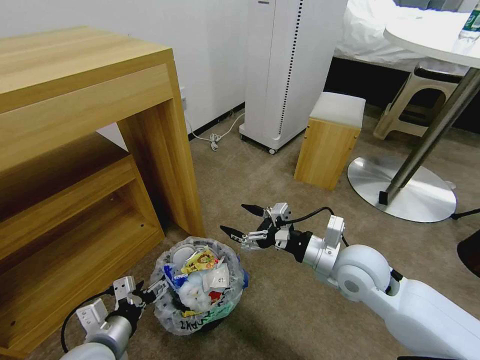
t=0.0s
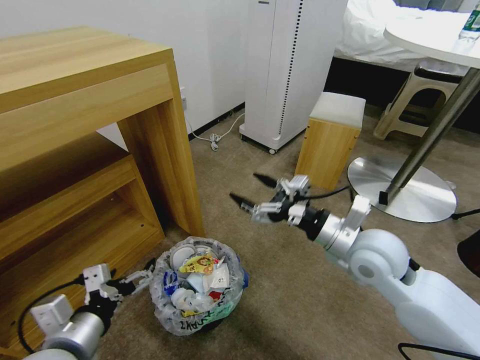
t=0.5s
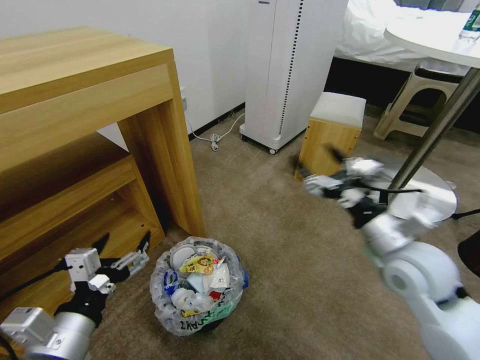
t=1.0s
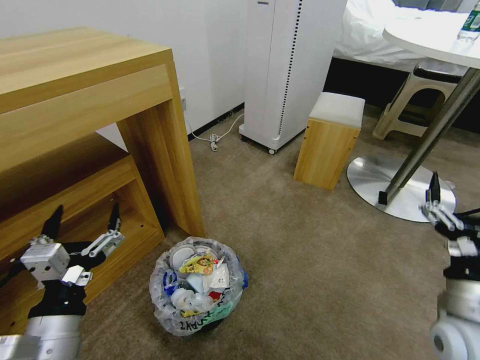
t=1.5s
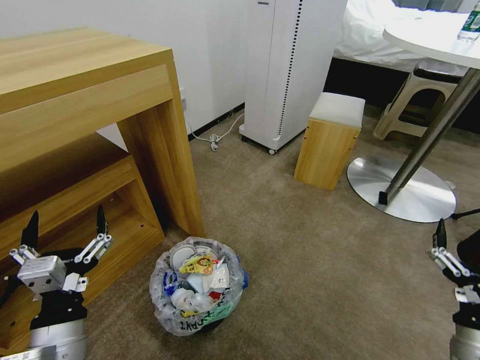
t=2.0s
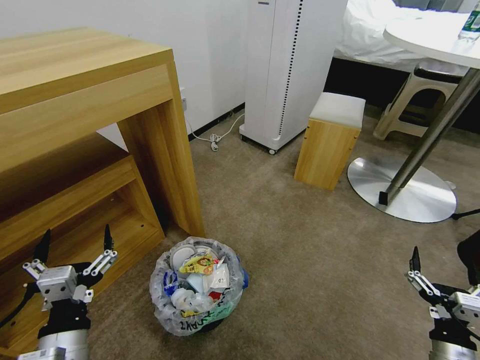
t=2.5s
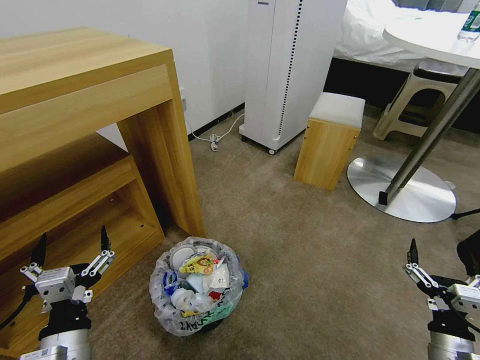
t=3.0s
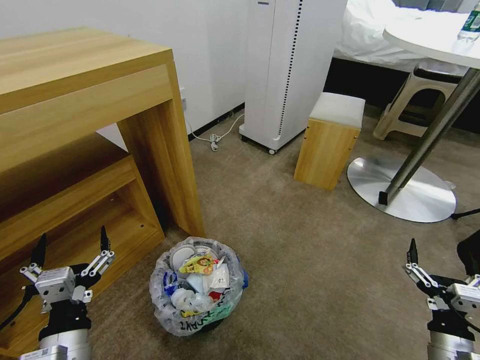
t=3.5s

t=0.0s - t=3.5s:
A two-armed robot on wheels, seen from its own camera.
Task of the whole recording: Pick up the trash bin and place the garbage on the floor into it.
t=0.0s - t=2.0s: The left gripper goes some 5 cm upward; the right gripper goes roughly 25 cm backward, to the right and downward.
t=2.0s - t=3.5s: The right gripper moves downward, roughly 5 cm.
